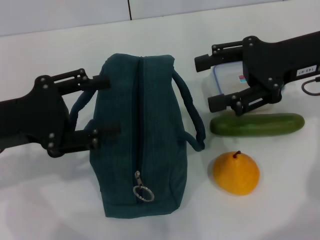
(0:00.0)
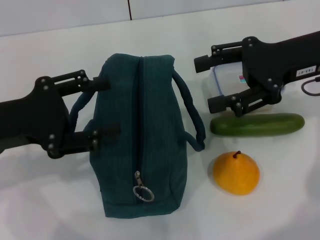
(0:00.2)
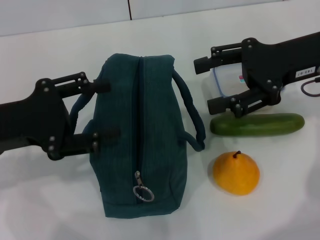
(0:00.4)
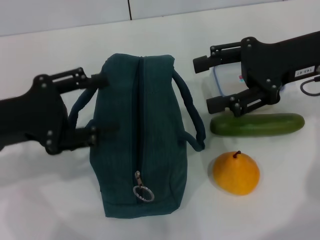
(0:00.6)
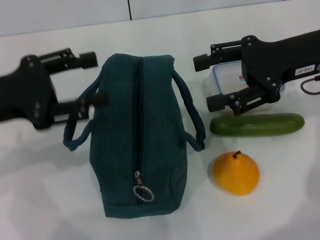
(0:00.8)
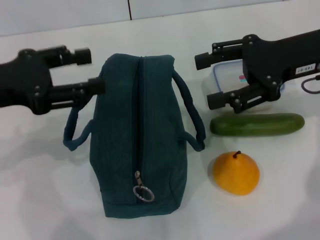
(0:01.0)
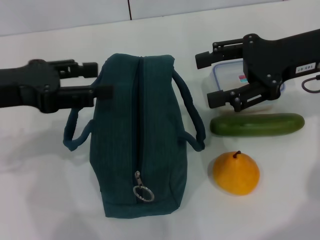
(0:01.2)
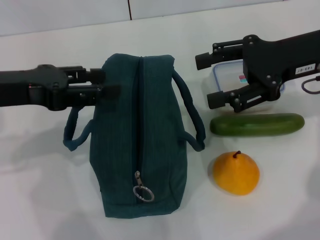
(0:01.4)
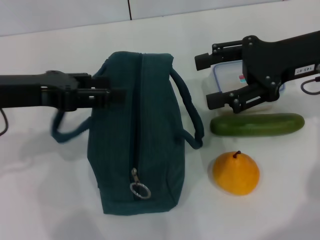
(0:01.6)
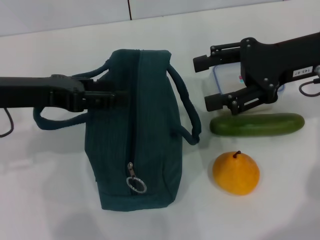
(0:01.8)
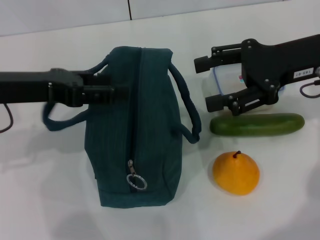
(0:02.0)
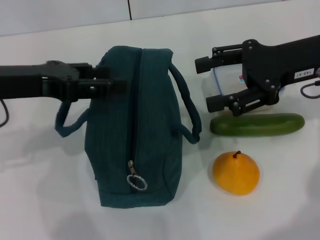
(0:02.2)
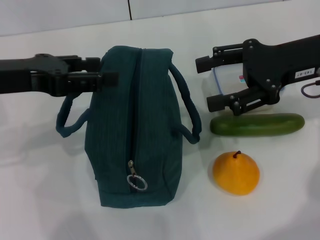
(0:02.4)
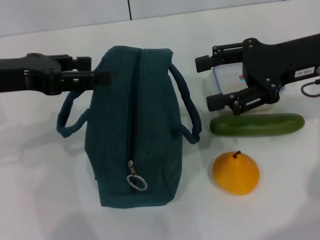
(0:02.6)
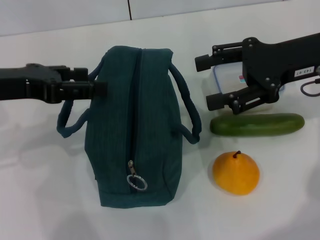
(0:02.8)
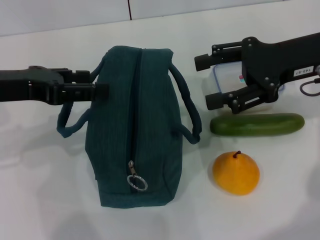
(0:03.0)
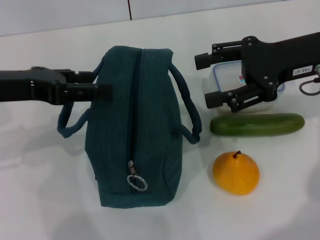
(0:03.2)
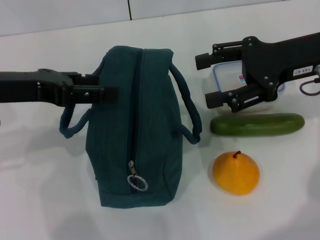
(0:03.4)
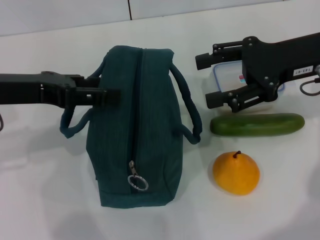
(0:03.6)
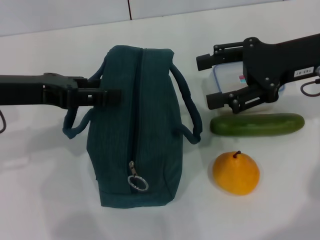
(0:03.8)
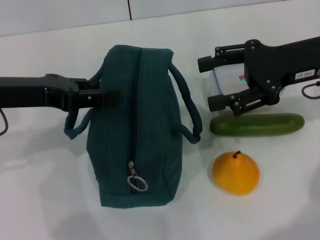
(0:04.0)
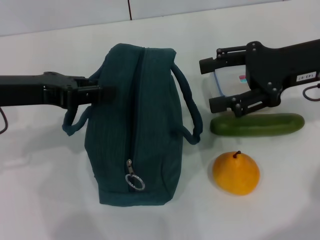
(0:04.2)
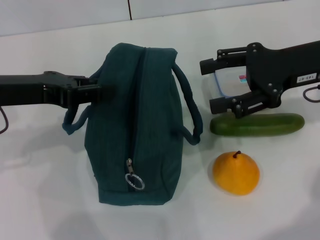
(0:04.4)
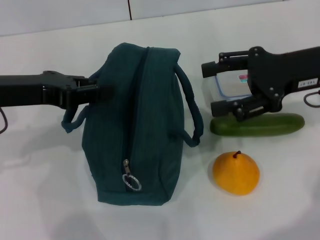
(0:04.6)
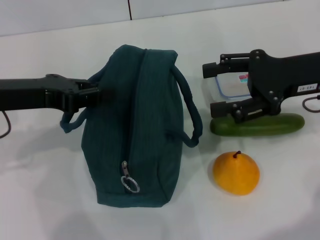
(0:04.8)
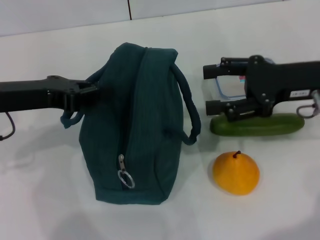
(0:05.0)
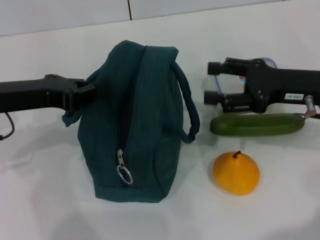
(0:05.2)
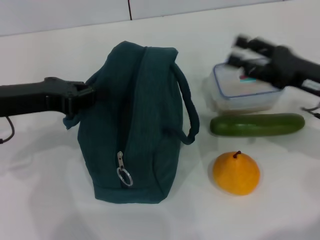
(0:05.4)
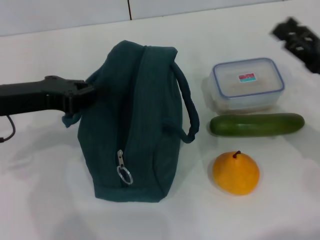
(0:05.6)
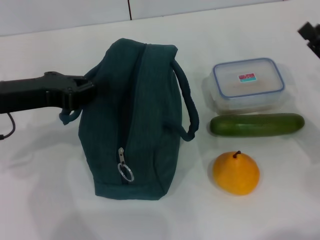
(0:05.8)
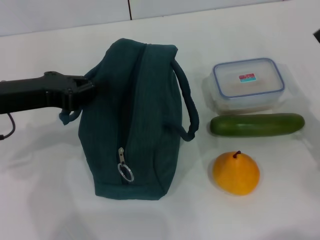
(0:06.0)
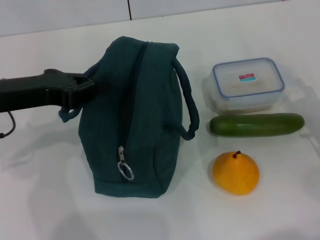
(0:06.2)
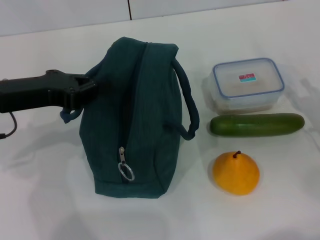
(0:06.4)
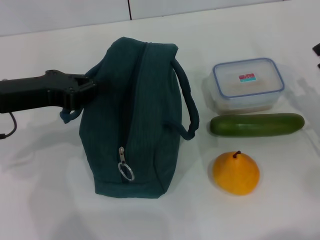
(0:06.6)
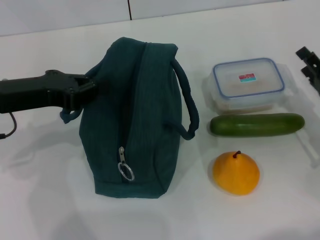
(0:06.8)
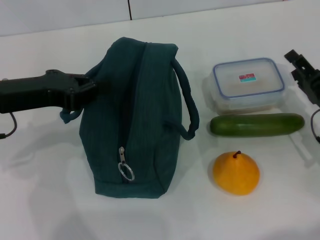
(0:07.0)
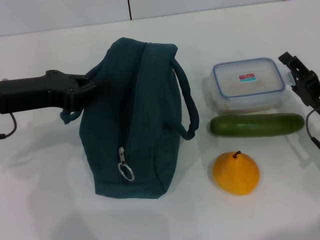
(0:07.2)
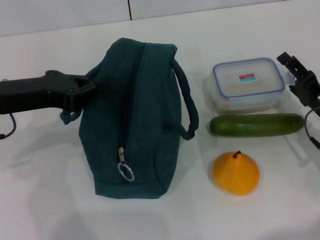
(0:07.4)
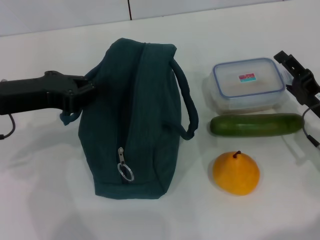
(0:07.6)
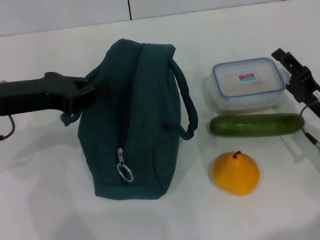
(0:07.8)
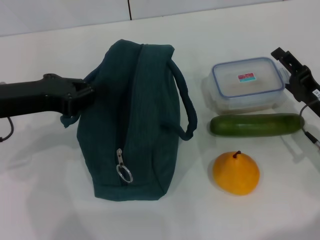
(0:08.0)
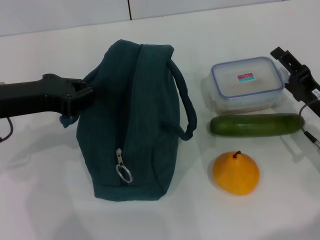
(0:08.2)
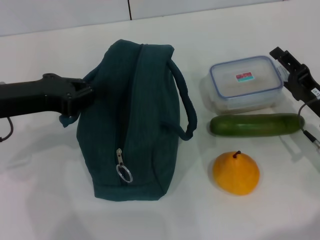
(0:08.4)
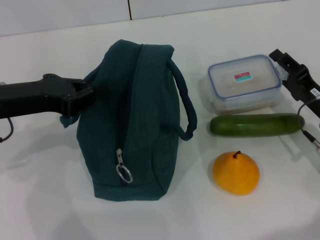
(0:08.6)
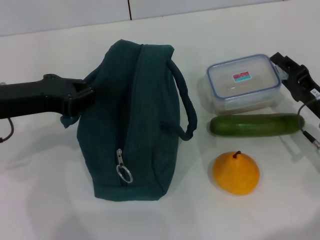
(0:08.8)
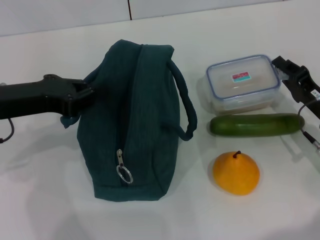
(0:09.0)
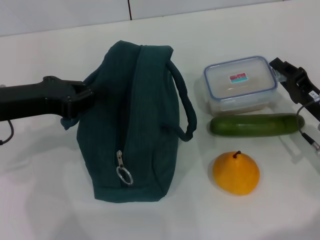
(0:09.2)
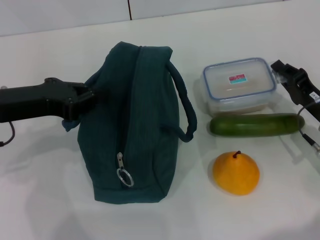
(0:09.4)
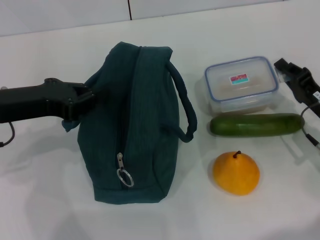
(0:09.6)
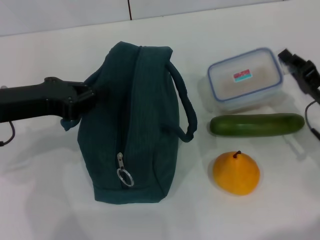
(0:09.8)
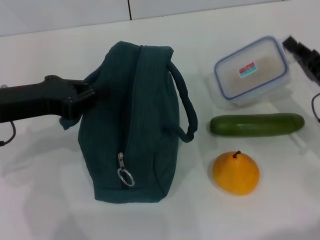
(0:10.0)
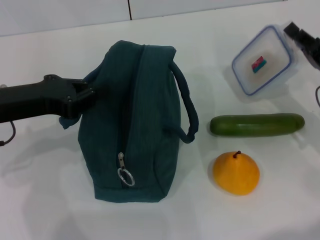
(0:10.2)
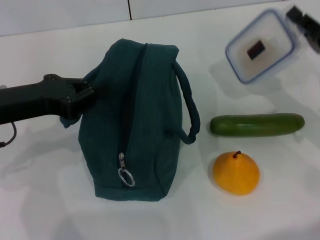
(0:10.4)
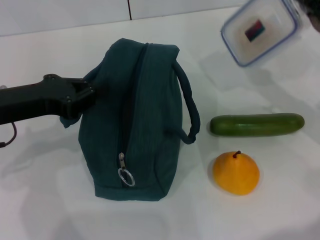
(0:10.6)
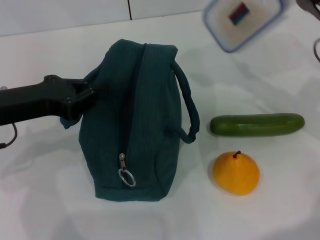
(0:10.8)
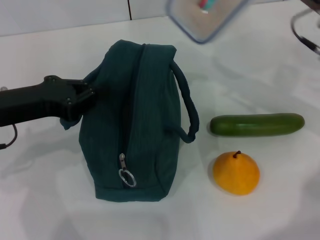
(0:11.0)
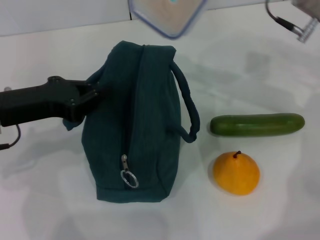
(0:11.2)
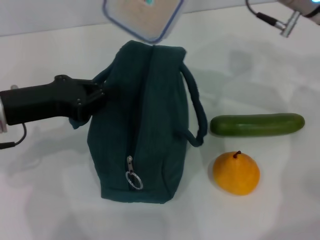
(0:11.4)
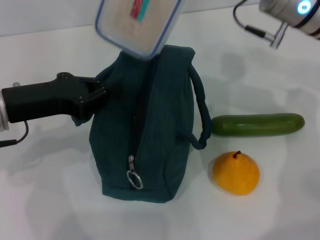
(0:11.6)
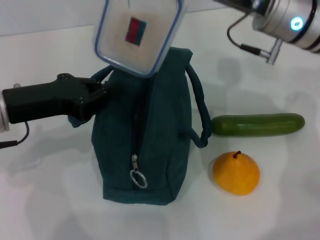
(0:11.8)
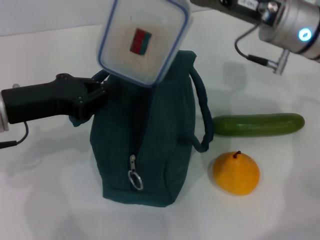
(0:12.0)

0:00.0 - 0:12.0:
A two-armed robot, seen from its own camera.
Step, 0:00.0 - 0:04.8: Hold the lunch bag with your left hand.
Step, 0:05.0 - 0:09.2: Pick up the lunch box with your right hand.
0:00.0 - 0:01.6: The left gripper changes place by roughly 5 cm.
0:01.6 - 0:03.0: The grippers stay close to where they were, moving slightly.
0:03.0 - 0:04.4: The left gripper closes up.
0:04.4 - 0:06.0: The left gripper closes. The right gripper goes some 20 cm downward, backward and to the right.
0:06.0 - 0:07.6: The right gripper changes place by some 5 cm.
0:07.6 - 0:09.0: The right gripper closes up.
0:09.0 - 0:10.4: The right gripper heads upward, covering approximately 5 cm.
0:10.4 - 0:12.0: The right gripper goes some 15 cm to the left, upward and forward.

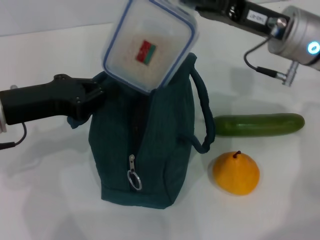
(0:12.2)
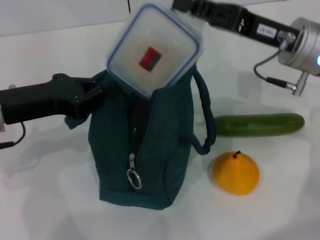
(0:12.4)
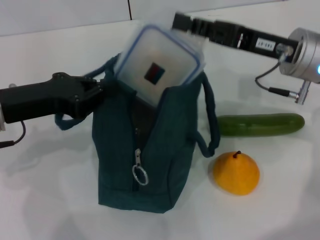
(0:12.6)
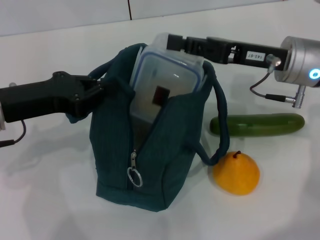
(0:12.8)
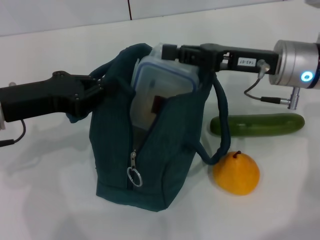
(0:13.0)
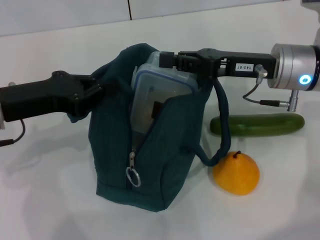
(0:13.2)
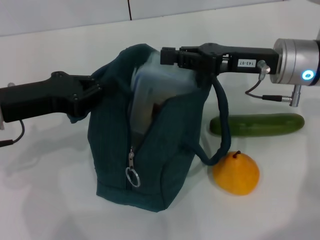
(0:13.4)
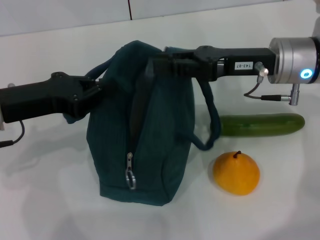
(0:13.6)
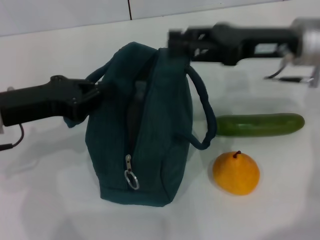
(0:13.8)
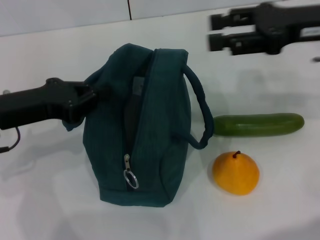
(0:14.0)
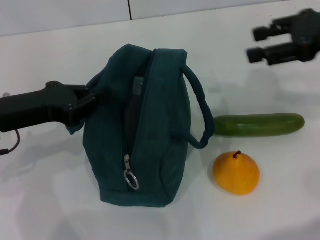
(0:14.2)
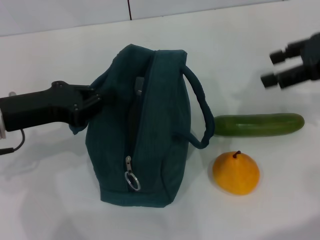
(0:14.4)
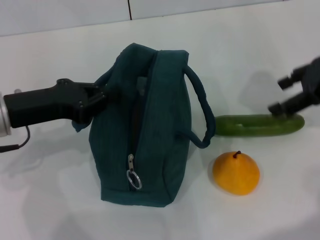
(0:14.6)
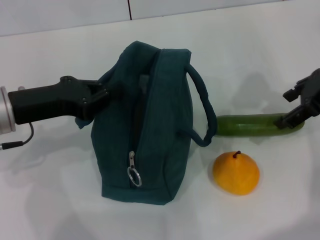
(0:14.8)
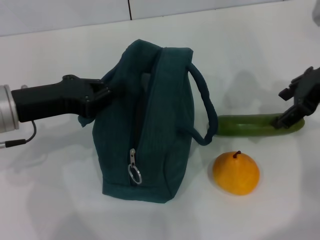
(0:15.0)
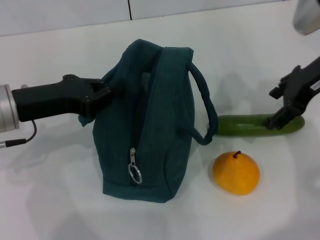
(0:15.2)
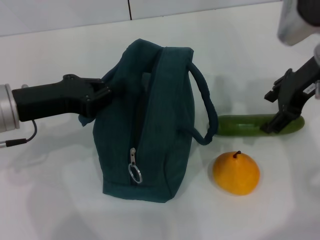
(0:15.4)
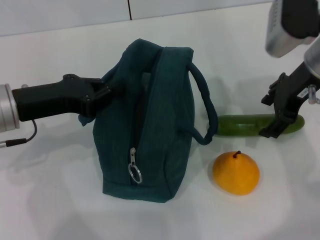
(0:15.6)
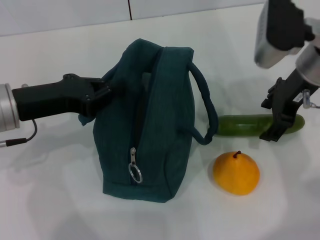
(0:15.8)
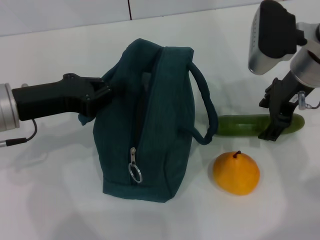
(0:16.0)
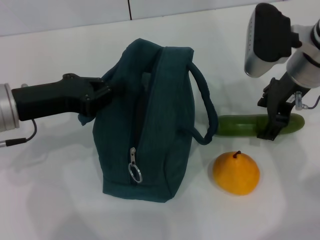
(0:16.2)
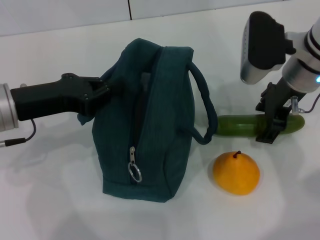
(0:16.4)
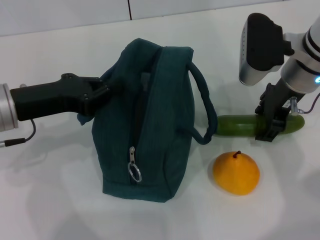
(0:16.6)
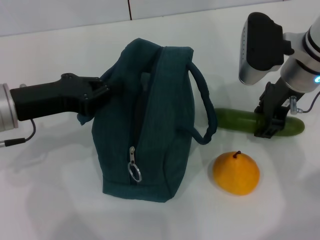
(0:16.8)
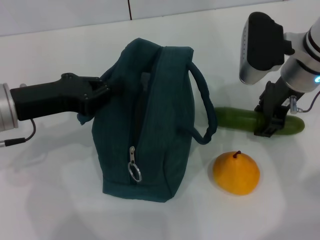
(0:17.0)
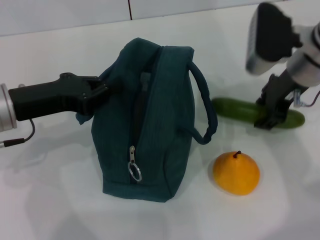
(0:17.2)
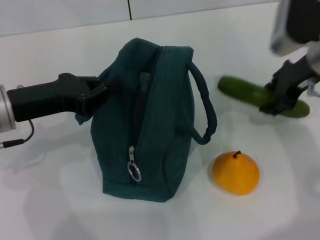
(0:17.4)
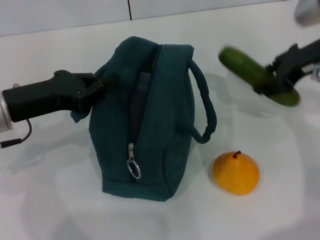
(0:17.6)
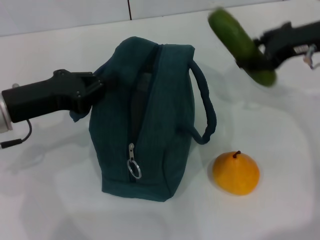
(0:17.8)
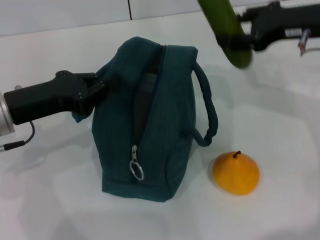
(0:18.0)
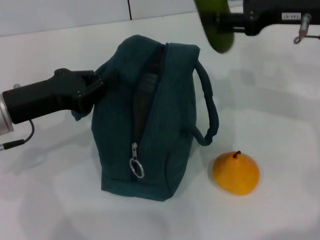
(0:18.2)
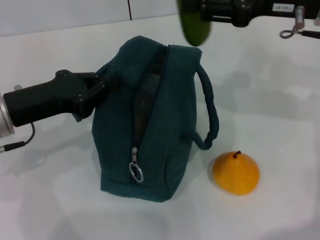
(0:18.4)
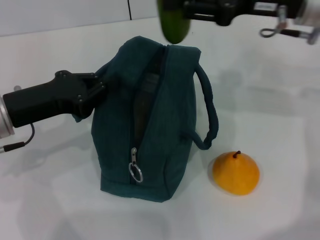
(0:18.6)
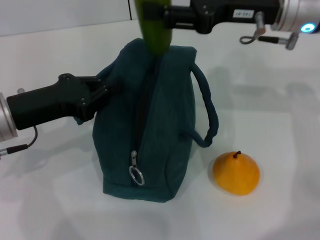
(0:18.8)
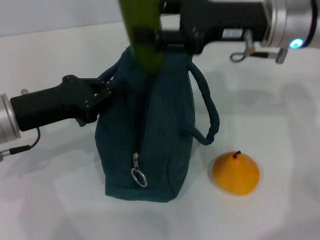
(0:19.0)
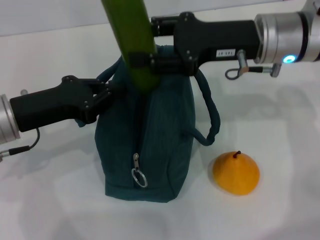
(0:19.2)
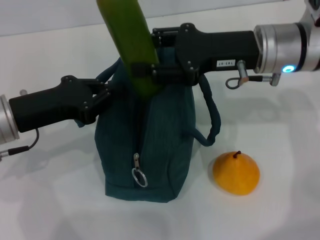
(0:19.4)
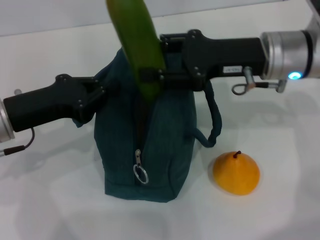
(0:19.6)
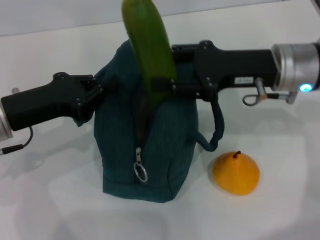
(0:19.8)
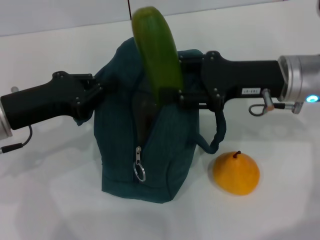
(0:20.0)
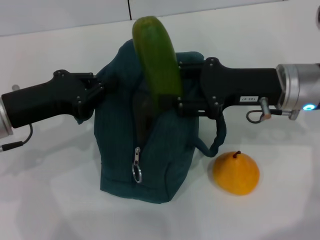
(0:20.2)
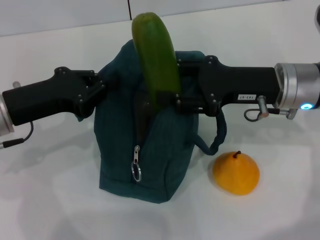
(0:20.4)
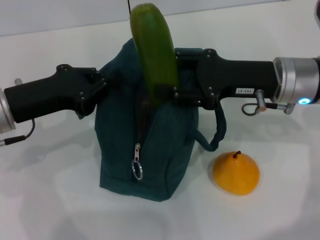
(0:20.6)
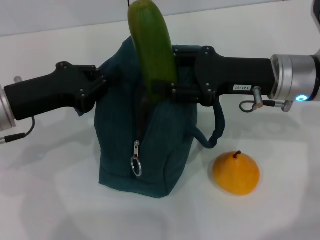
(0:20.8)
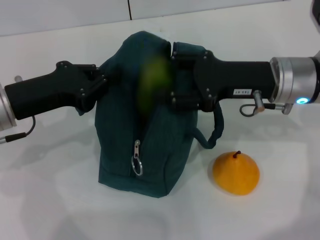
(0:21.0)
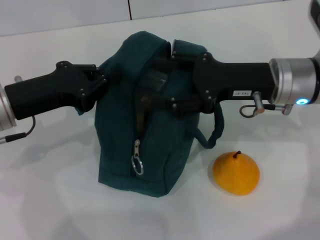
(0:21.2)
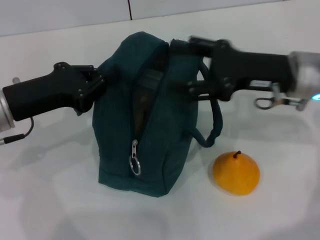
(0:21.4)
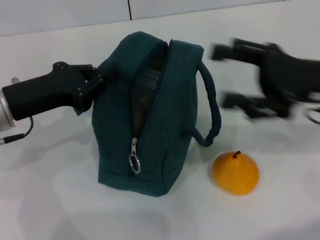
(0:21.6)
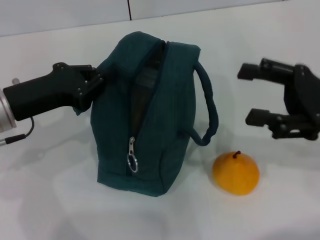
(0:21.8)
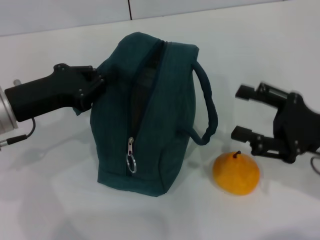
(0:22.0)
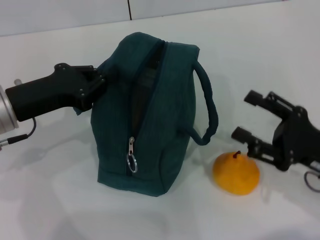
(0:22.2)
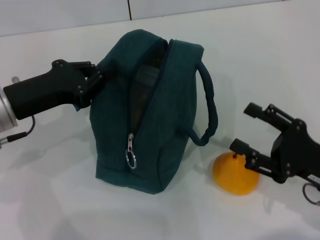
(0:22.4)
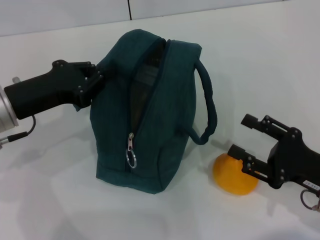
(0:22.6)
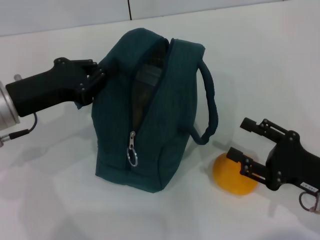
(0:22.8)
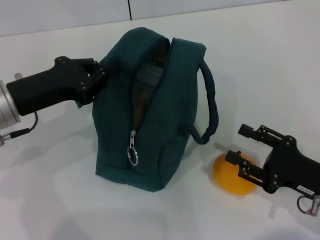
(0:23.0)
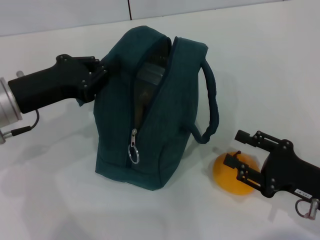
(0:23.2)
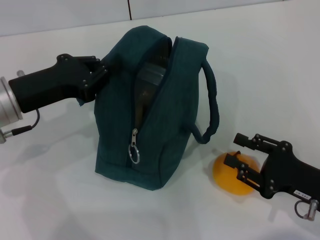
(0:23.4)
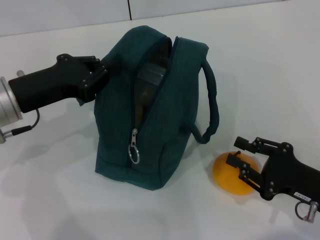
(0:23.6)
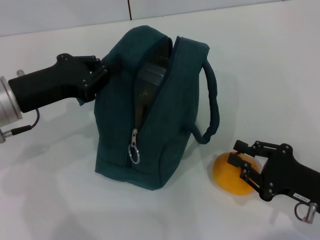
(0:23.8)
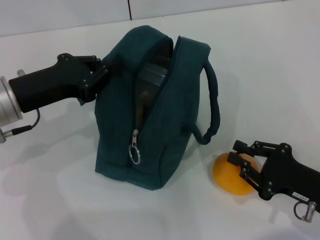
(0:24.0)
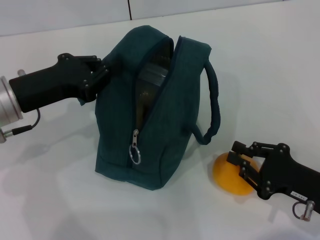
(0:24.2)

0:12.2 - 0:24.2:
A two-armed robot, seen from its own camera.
Step, 0:13.6 - 0:16.8: Pick up the cucumber with your right hand.
Step, 0:17.2 - 0:21.0: Put the cucumber into the lunch bag with your right hand.
0:13.8 - 0:15.2: The right gripper reaches approximately 10 cm to the right, then returns, and opens.
0:15.2 - 0:16.6: The right gripper goes approximately 5 cm to the left.
0:16.6 - 0:18.2: The right gripper moves upward and to the right, some 10 cm.
0:18.2 - 0:19.8: The right gripper moves downward and to the left, some 10 cm.
0:19.8 - 0:21.2: There are only small adjustments of the grippers.
0:21.2 - 0:22.6: The right gripper heads backward, downward and to the right, covering roughly 20 cm.
0:22.6 - 0:24.2: The right gripper closes its fingers.
